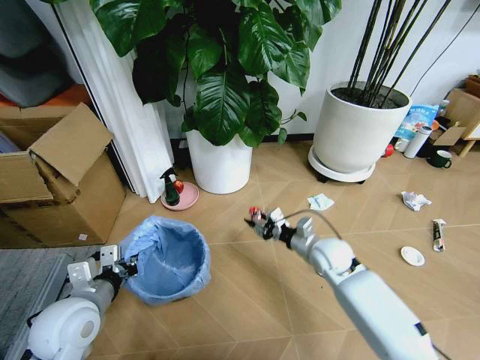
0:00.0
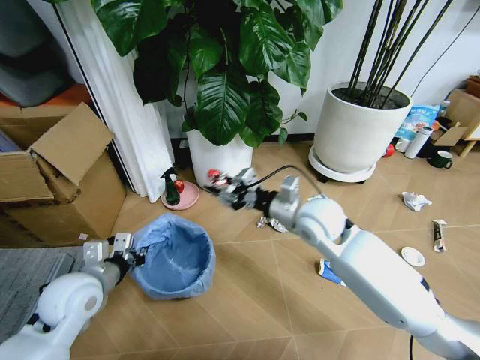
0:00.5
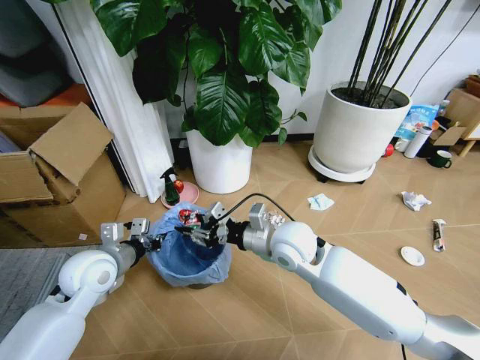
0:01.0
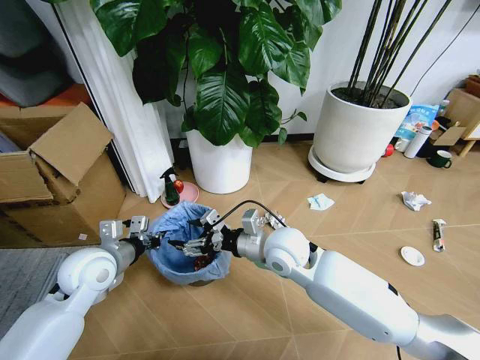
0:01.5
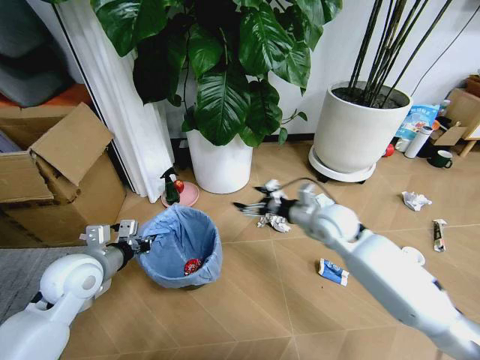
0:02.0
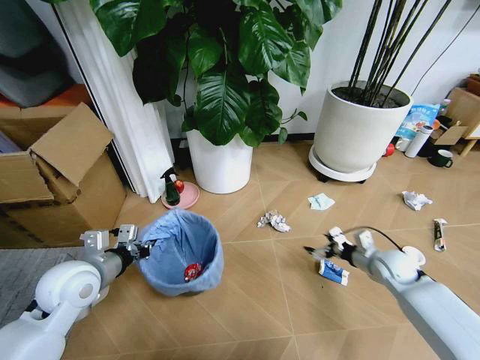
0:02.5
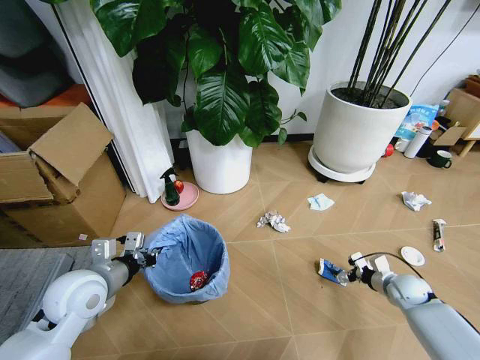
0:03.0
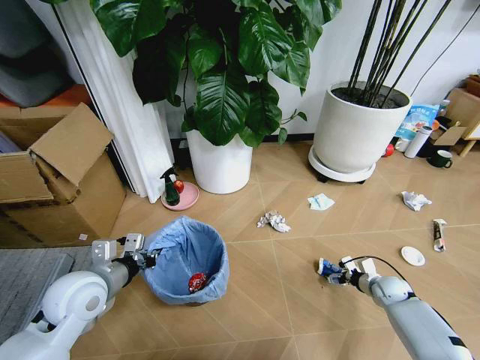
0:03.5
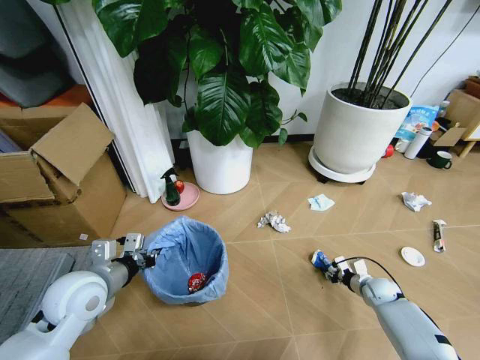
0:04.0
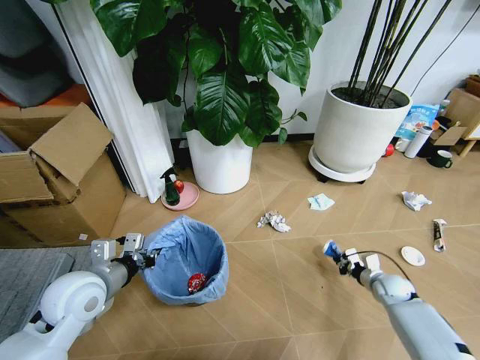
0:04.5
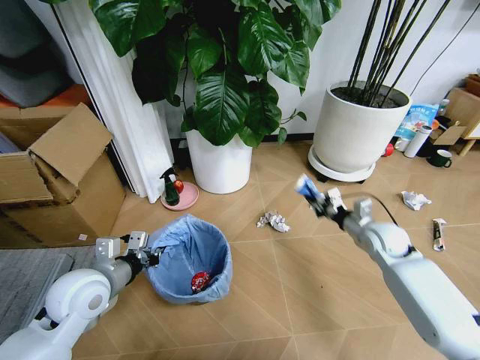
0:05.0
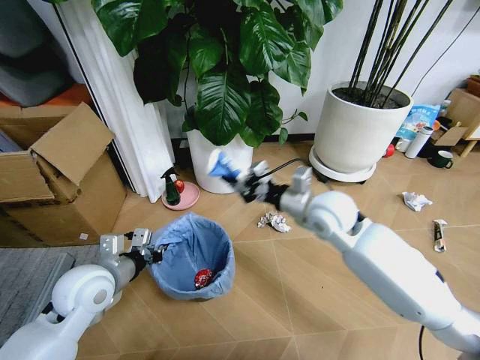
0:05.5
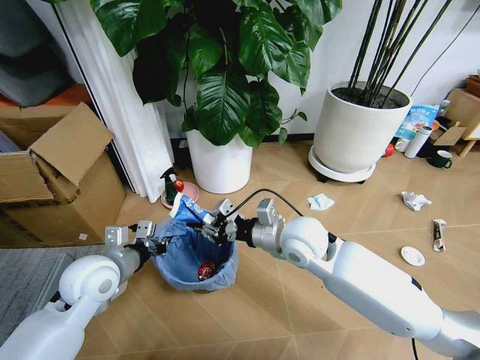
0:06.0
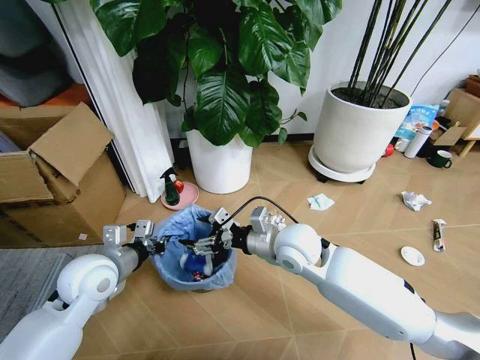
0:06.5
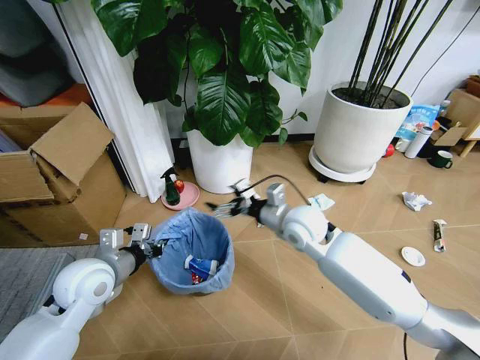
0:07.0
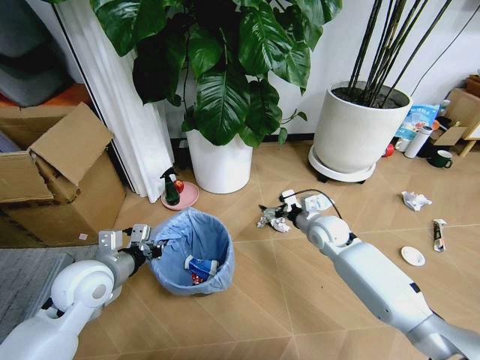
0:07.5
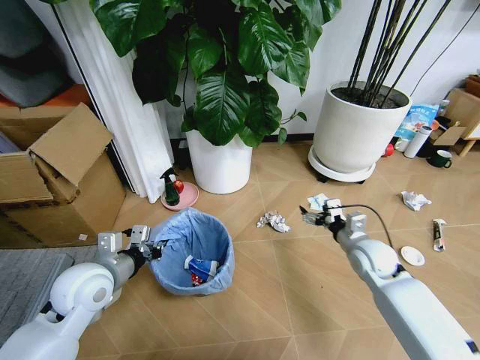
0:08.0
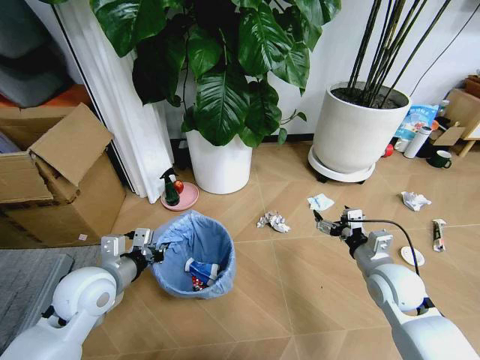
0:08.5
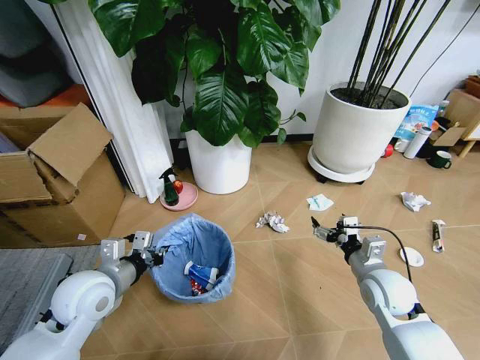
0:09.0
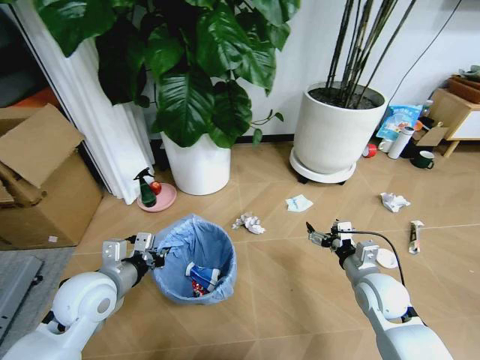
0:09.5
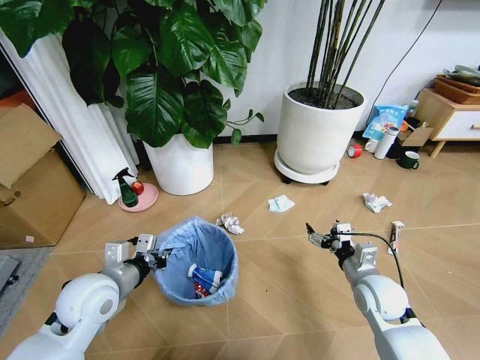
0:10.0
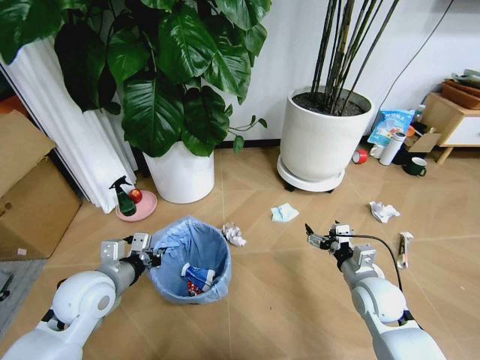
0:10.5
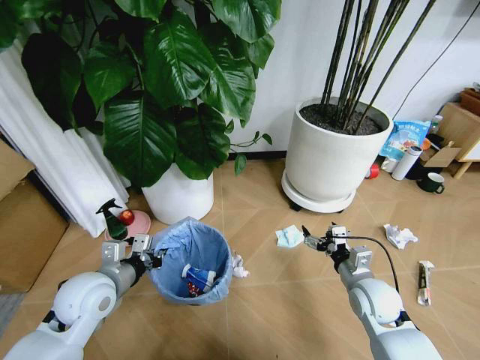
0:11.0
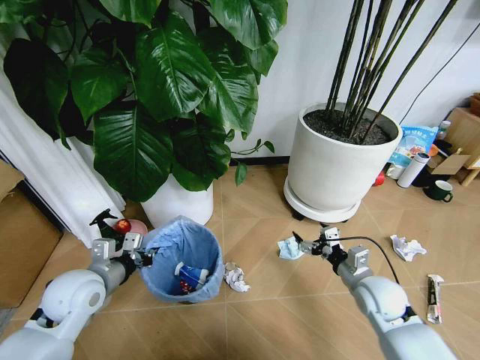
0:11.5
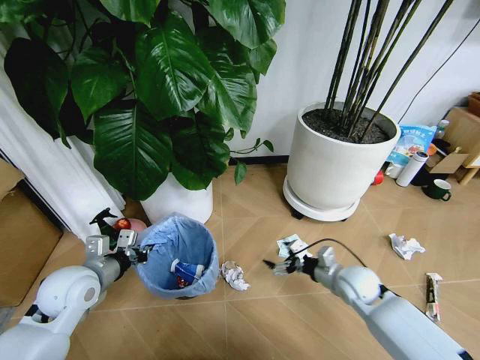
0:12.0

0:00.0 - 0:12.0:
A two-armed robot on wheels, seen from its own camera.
Task of the whole recording: Pick up the trash bin and place the garbage on the floor into it.
0:00.0 - 0:02.0: The right gripper travels upward by about 10 cm, and opens up, while the left gripper heads forward, covering some 10 cm.
0:02.0 - 0:04.0: The right gripper heads downward and to the right, covering some 35 cm, and closes up.
0:04.0 - 0:06.0: The right gripper shifts approximately 40 cm upward and to the left.
0:06.0 - 0:08.0: The right gripper travels to the right and downward by about 25 cm, and opens up.
0:08.0 - 0:10.0: The right gripper shifts approximately 10 cm backward.
0:10.0 - 0:12.0: The right gripper moves roughly 5 cm. The left gripper heads to the left, covering roughly 5 cm.

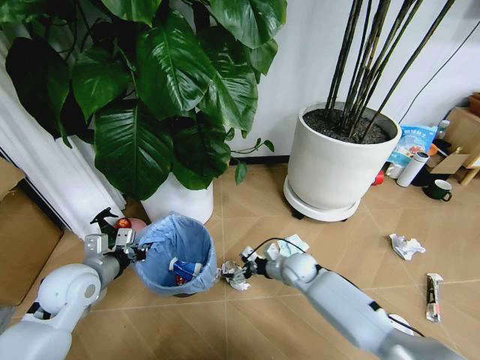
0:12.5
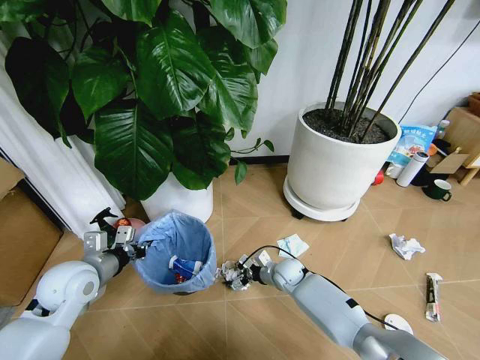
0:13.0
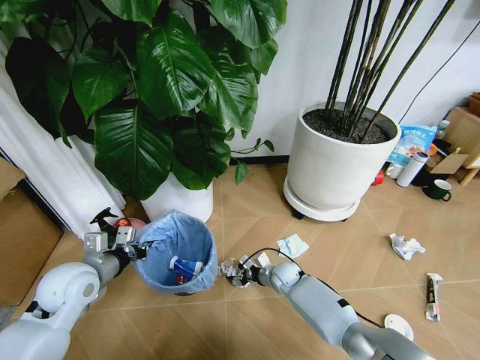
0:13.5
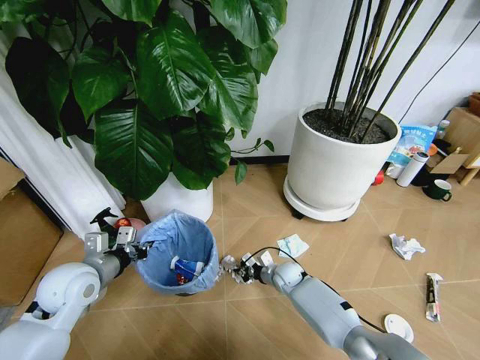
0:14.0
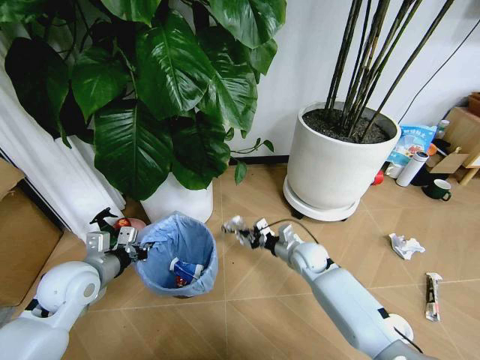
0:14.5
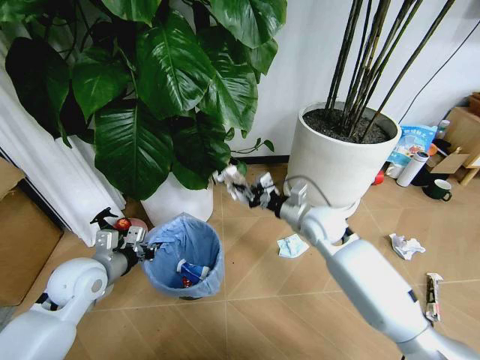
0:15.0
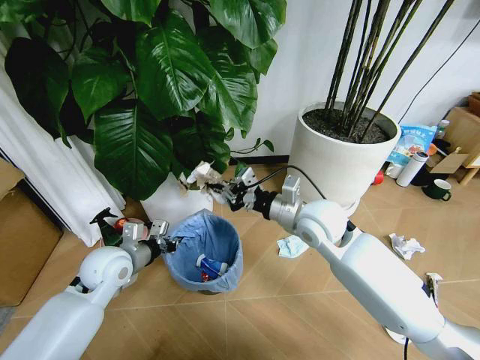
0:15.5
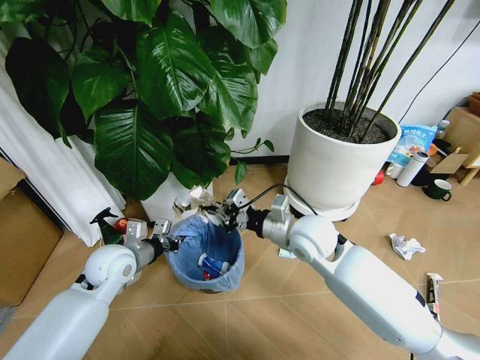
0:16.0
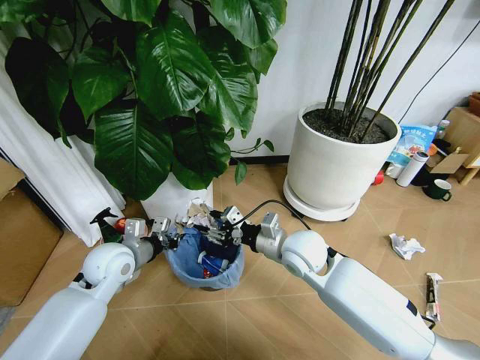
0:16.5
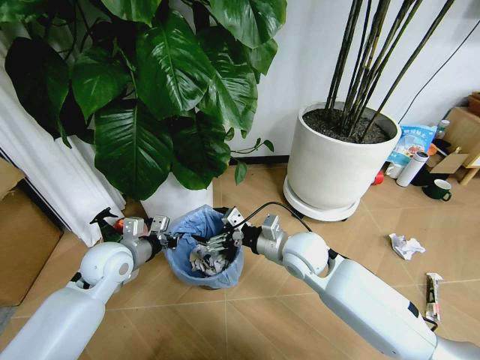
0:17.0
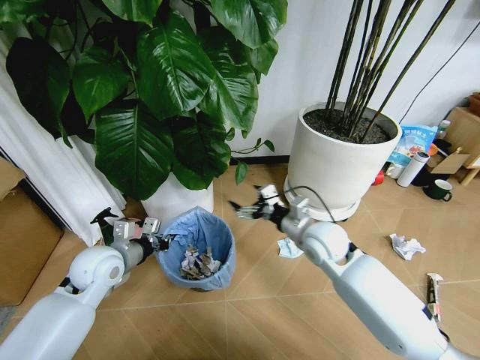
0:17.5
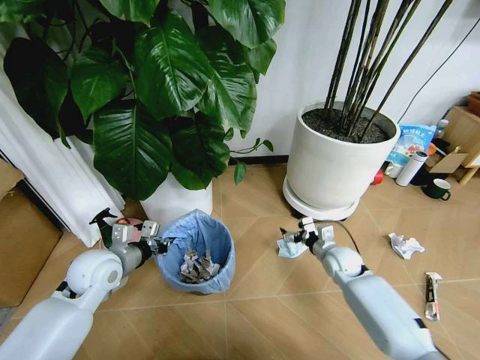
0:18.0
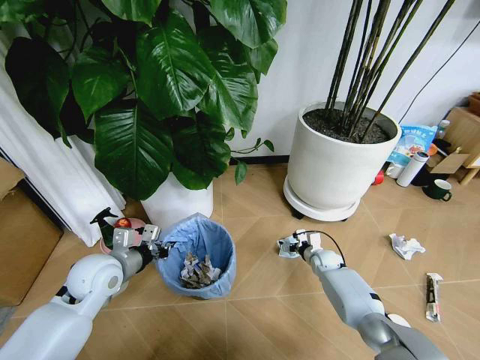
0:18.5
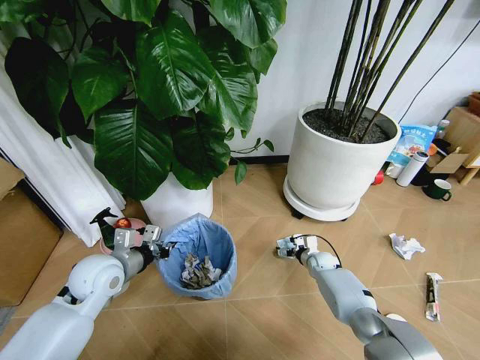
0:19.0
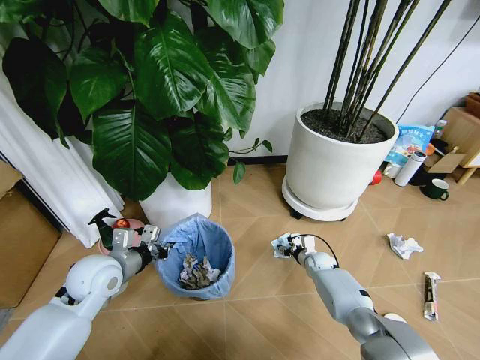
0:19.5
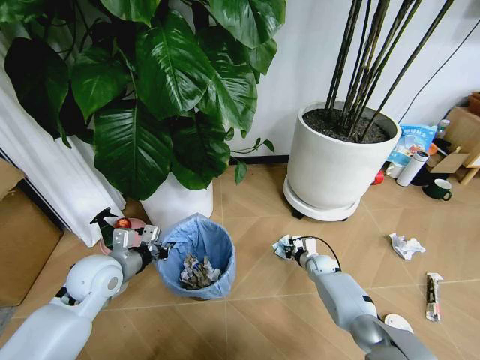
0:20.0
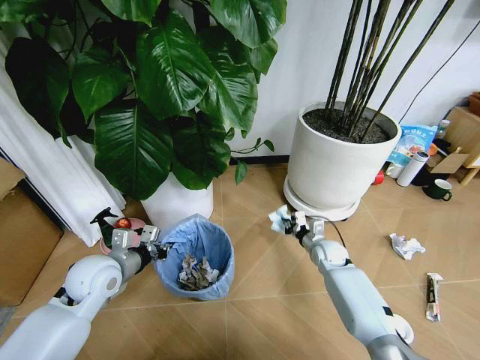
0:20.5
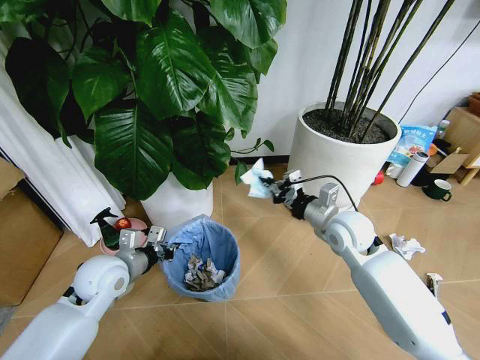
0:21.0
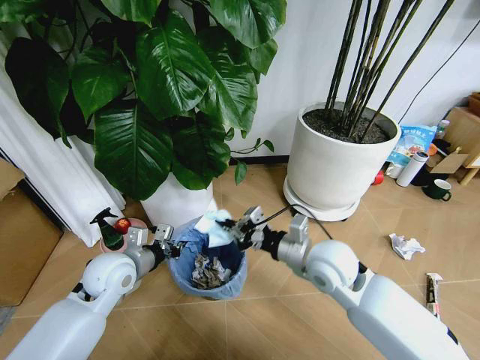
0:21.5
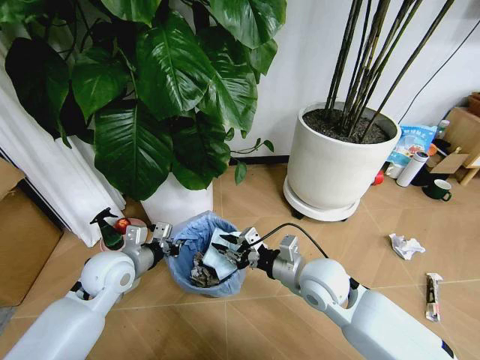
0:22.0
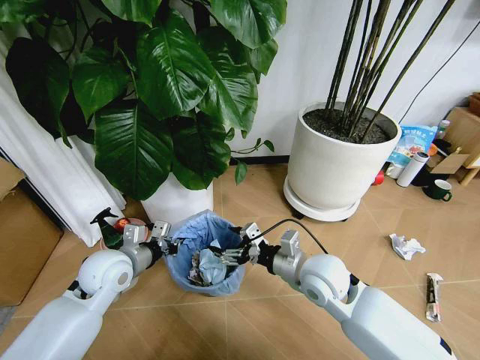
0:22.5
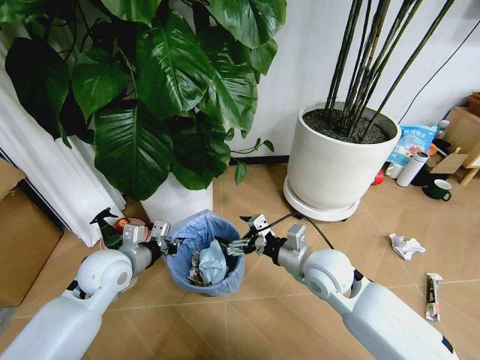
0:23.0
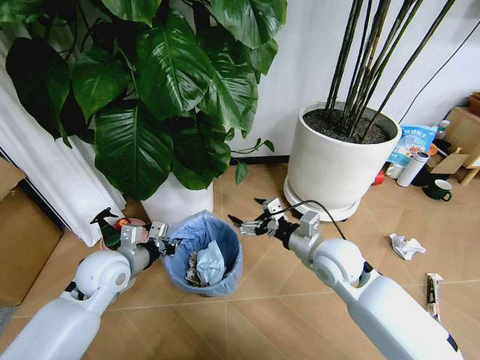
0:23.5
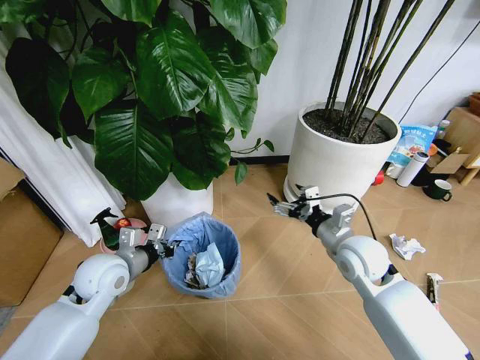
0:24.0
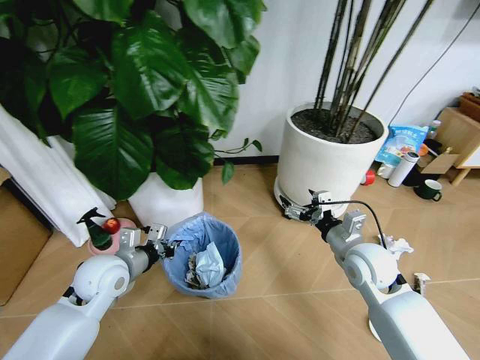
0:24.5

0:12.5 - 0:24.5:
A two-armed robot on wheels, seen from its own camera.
Task of the whole recording: Pick up the trash bin and place the garbage on the floor into it.
0:12.5 - 0:14.5: The right gripper travels downward and back again, some 5 cm each way, and closes its fingers.
0:14.5 - 0:16.5: The left gripper is displaced forward by roughly 5 cm. The right gripper travels upward, backward and to the left by approximately 20 cm, and opens up.
0:16.5 - 0:18.5: The right gripper travels downward and to the right by approximately 30 cm, and opens its fingers.
0:18.5 - 0:20.5: The right gripper goes some 10 cm upward, and closes up.
0:20.5 - 0:22.5: The right gripper travels upward, backward and to the left by approximately 25 cm, and opens its fingers.
0:22.5 - 0:24.5: The right gripper moves to the right, roughly 10 cm.

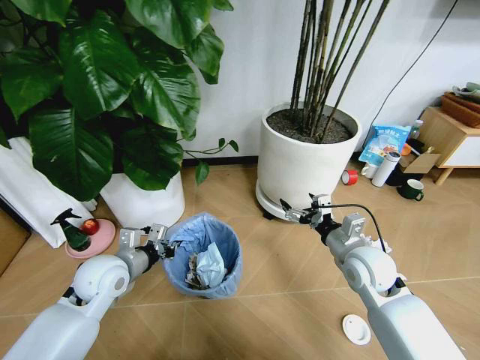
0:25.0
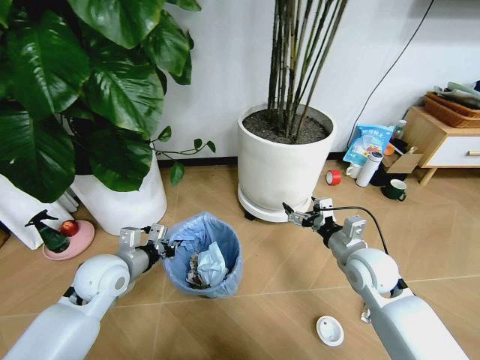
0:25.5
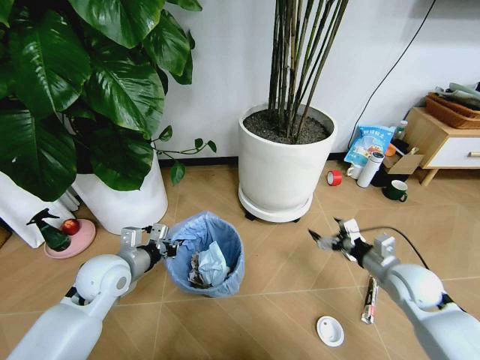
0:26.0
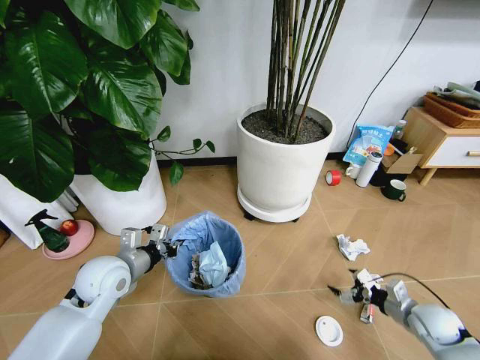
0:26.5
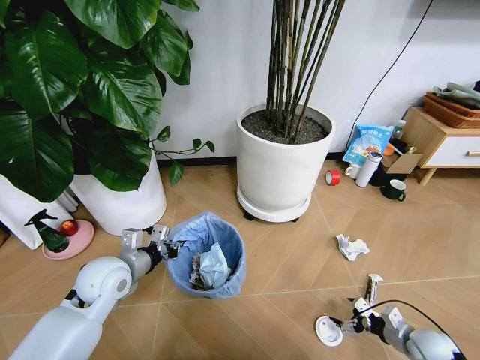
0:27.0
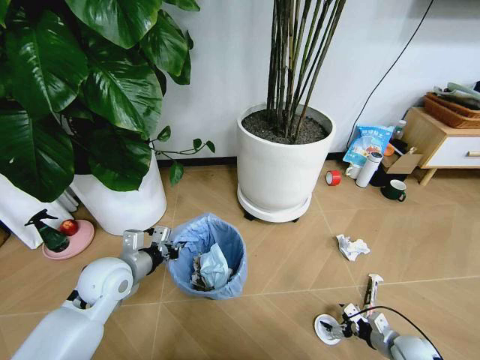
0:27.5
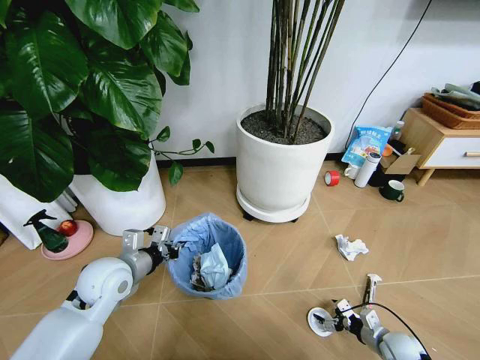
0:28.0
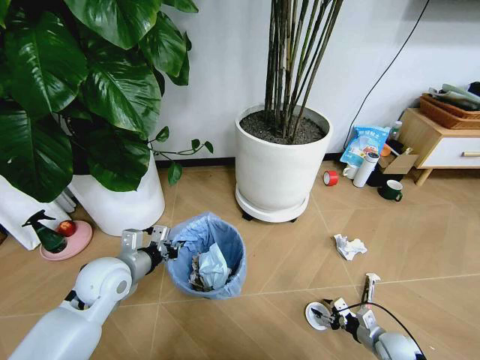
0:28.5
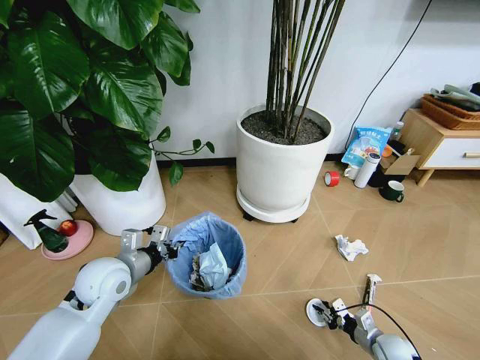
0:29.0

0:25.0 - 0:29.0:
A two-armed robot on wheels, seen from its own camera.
Task of the whole recording: Pick up the trash bin and place the garbage on the floor into it.
0:25.0 - 0:27.0: The right gripper moves downward, to the right and backward, about 30 cm.
0:27.0 - 0:29.0: The right gripper moves downward and to the left, approximately 10 cm, and closes up.
